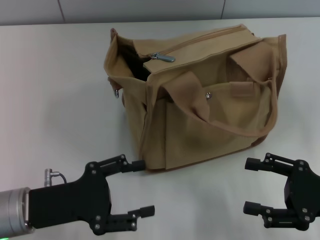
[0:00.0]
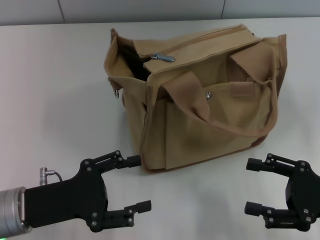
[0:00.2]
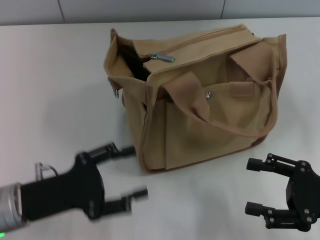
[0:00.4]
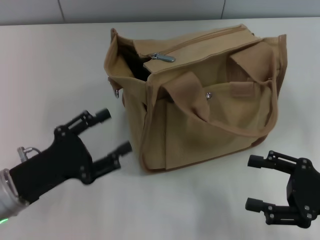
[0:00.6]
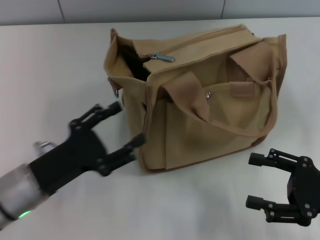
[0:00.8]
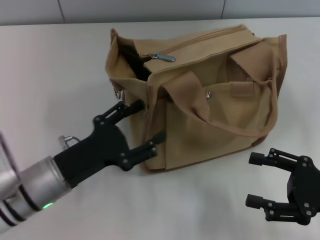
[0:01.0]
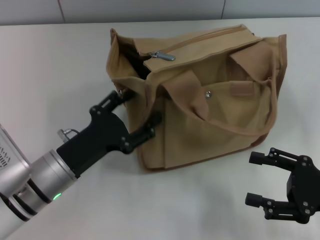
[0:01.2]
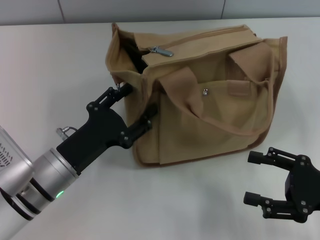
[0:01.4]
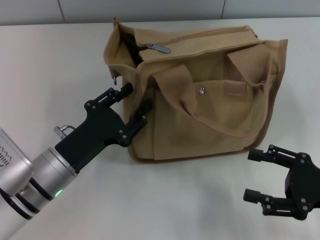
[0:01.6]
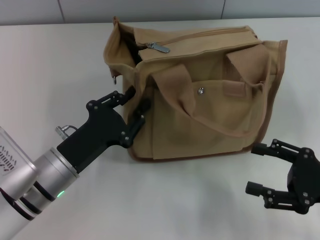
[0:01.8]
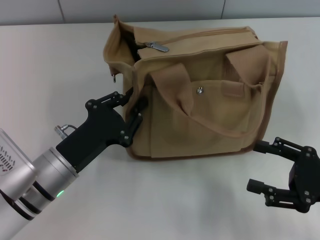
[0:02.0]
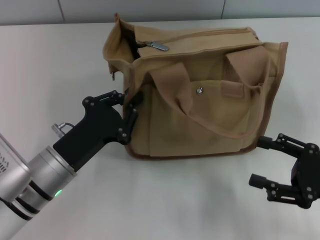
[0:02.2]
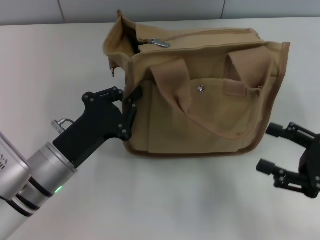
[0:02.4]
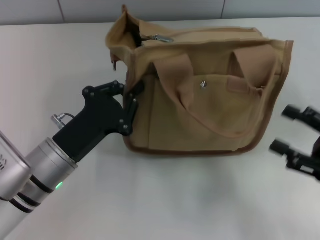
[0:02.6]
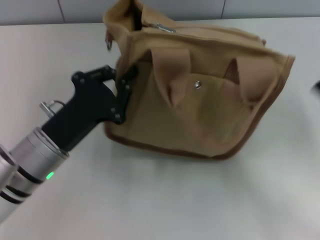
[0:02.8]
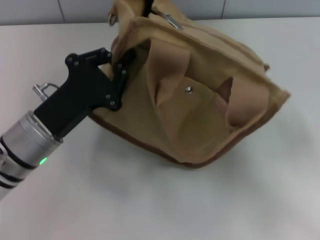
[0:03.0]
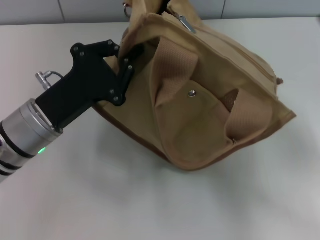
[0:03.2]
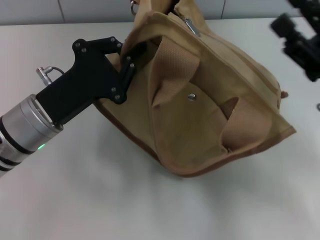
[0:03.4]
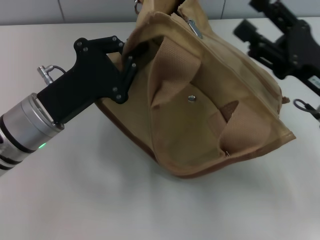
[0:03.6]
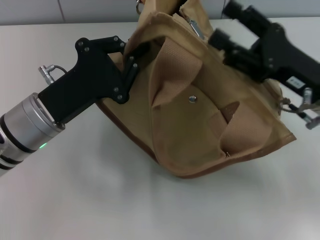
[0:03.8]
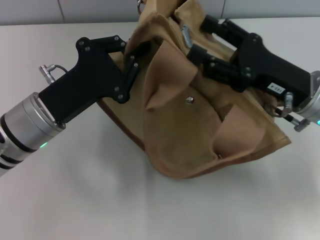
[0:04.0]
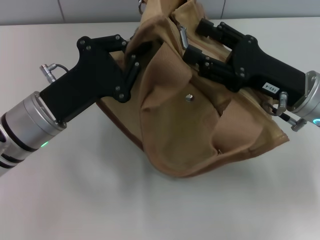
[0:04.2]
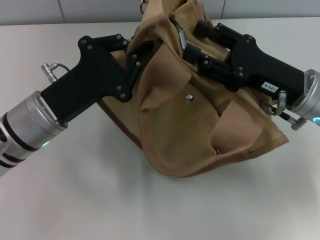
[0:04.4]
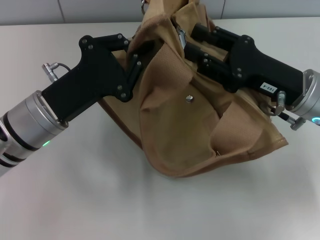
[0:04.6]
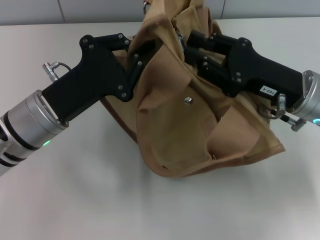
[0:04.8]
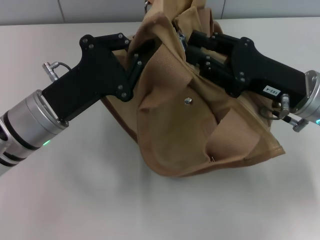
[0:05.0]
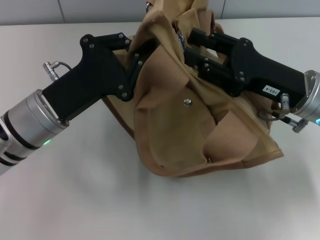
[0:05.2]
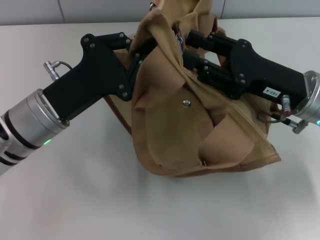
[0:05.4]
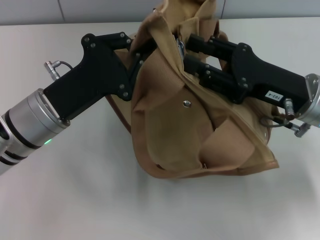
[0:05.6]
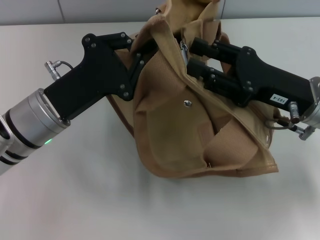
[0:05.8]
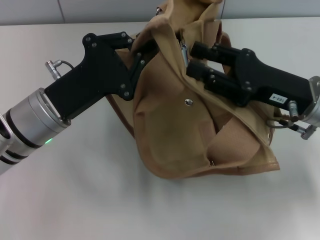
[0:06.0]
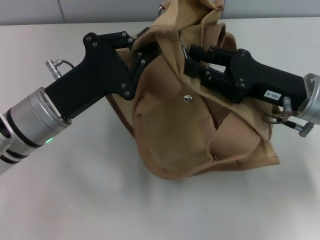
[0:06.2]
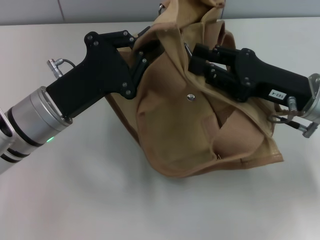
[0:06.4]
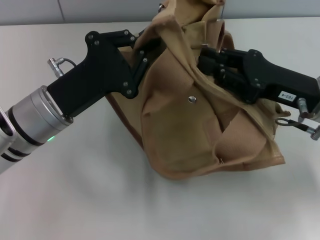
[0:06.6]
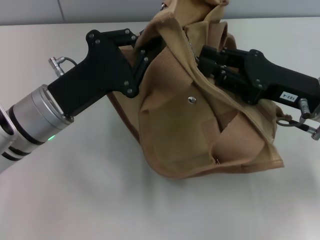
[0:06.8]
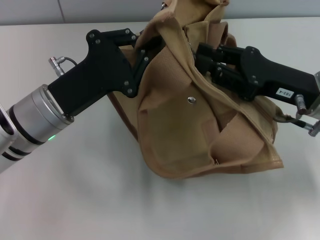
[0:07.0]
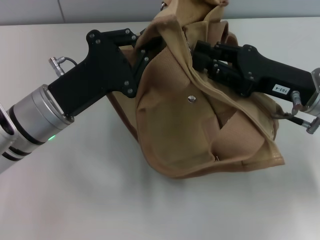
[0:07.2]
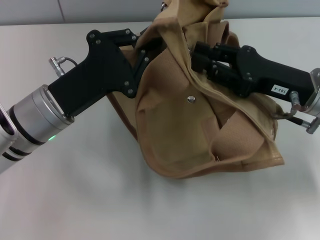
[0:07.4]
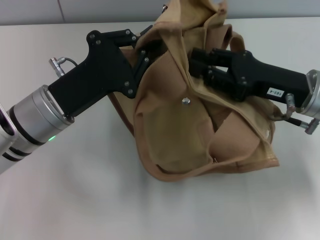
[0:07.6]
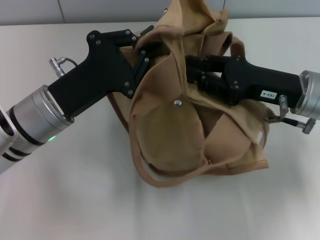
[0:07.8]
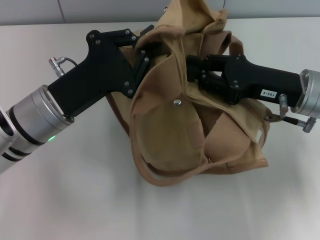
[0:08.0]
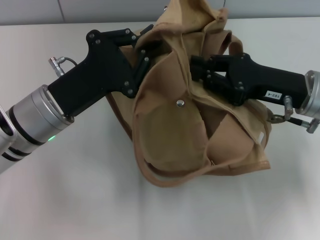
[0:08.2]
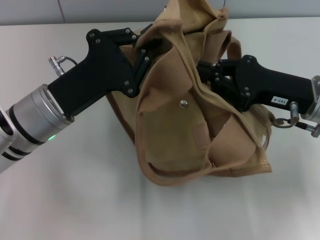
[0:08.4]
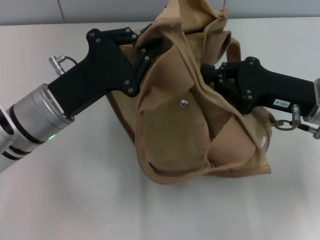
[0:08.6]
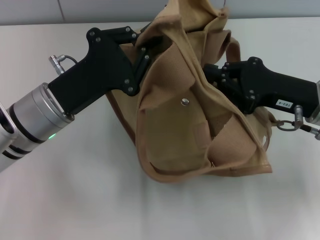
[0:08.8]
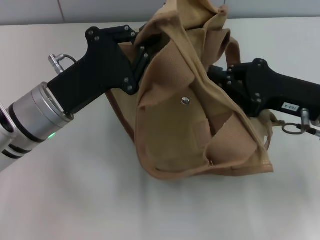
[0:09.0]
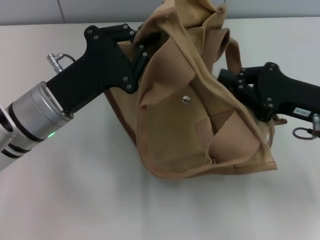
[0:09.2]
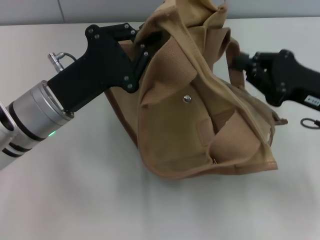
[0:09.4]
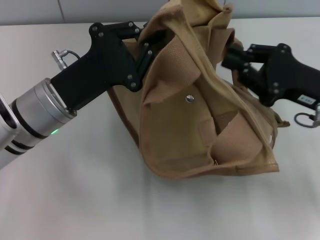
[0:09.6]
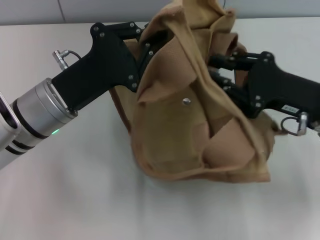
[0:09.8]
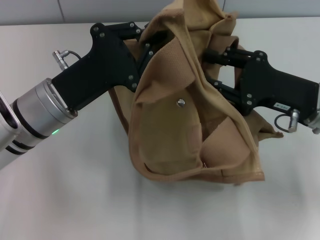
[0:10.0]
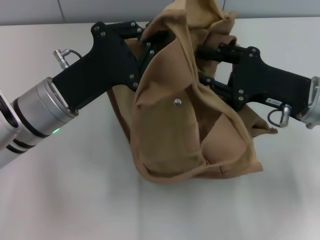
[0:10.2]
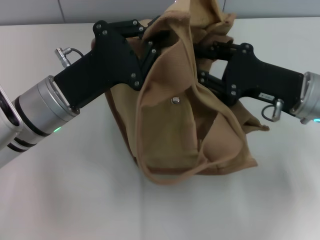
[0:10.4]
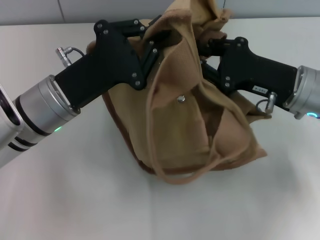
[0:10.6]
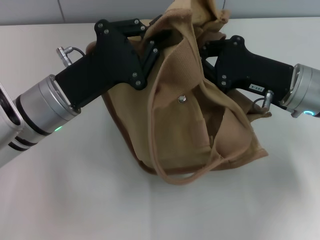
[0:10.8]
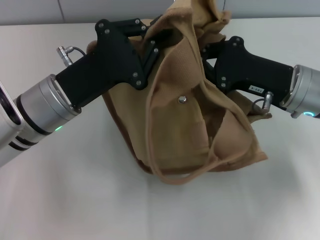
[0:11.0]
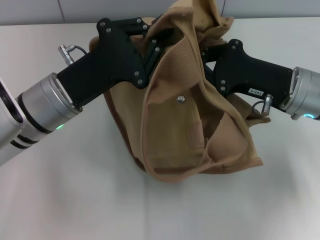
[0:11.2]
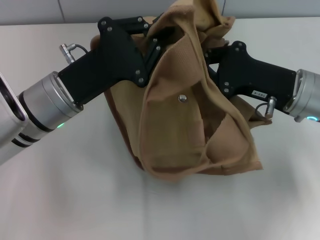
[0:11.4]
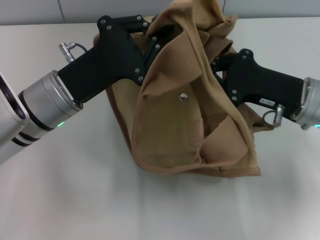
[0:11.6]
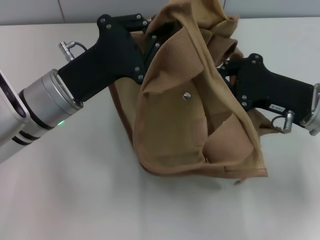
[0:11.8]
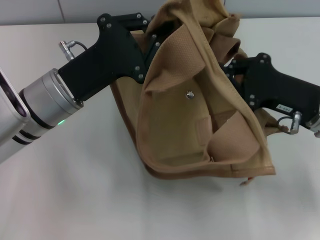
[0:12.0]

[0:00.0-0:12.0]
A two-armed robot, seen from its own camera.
0.0 to 1.6 s: The left gripper ends up some 5 cm from where it was.
1.6 to 3.0 s: The left gripper shifts by approximately 5 cm, and closes up.
3.0 to 4.4 s: The right gripper goes approximately 15 cm to the left and forward.
4.4 to 7.6 s: There are only small adjustments of the grippers.
7.6 to 9.0 s: The right gripper closes up.
9.0 to 10.4 s: The right gripper opens its fingers.
10.4 to 12.0 s: The right gripper closes.

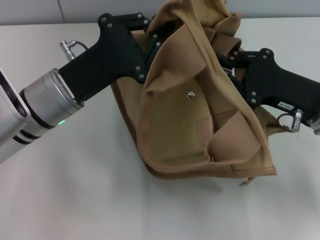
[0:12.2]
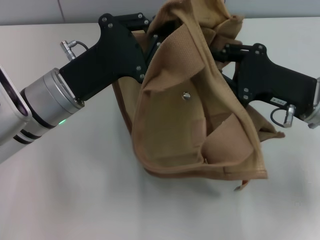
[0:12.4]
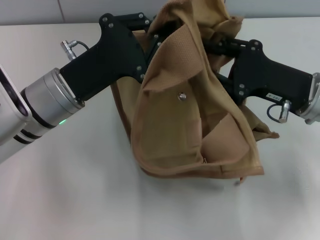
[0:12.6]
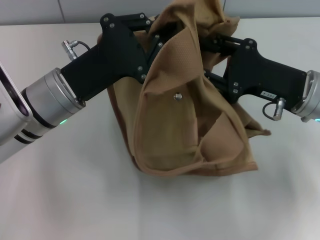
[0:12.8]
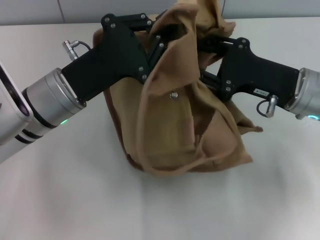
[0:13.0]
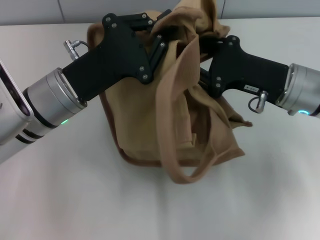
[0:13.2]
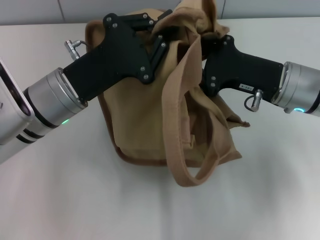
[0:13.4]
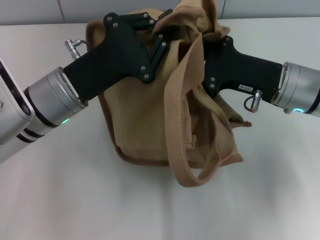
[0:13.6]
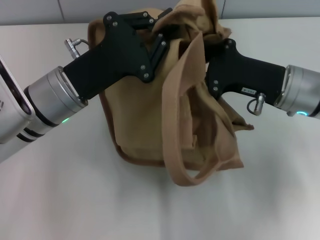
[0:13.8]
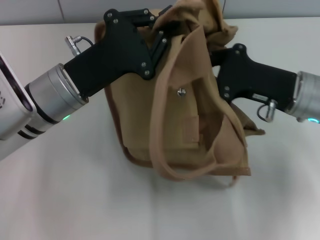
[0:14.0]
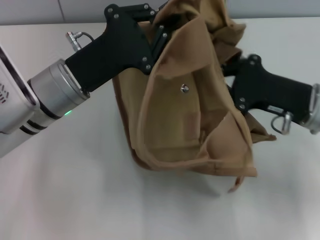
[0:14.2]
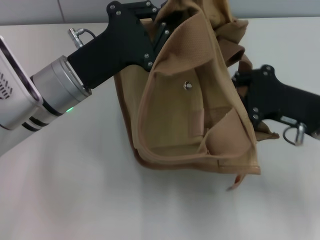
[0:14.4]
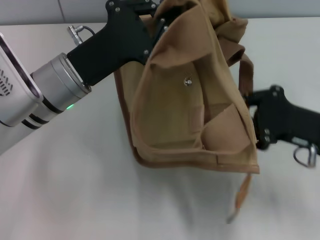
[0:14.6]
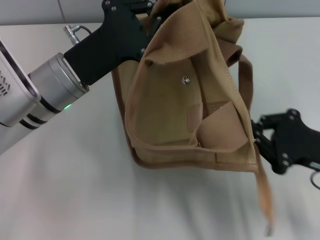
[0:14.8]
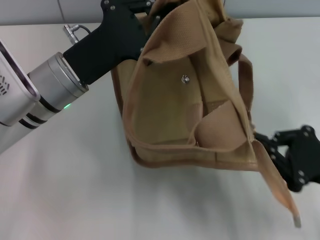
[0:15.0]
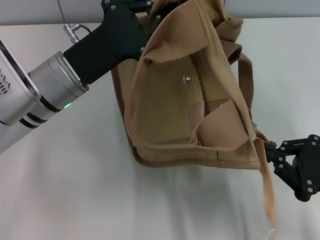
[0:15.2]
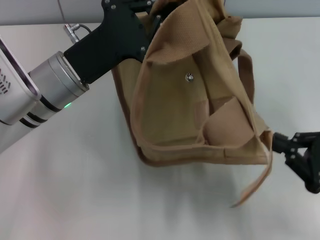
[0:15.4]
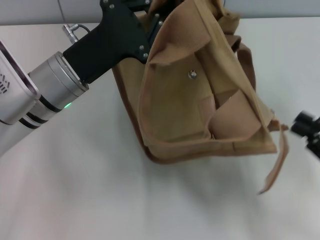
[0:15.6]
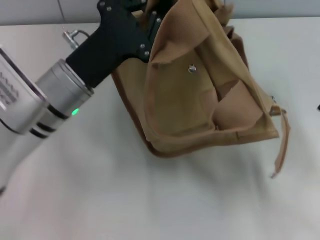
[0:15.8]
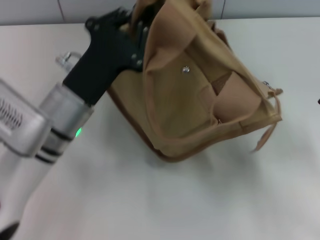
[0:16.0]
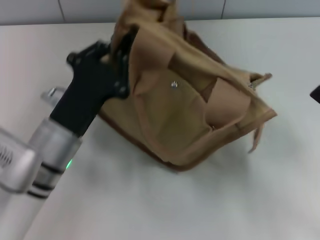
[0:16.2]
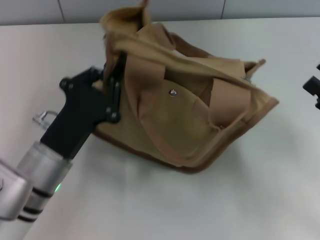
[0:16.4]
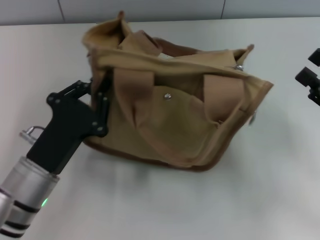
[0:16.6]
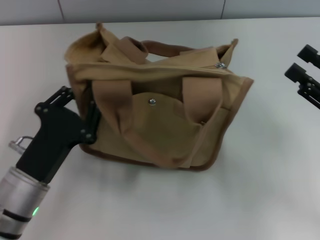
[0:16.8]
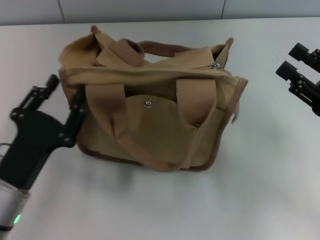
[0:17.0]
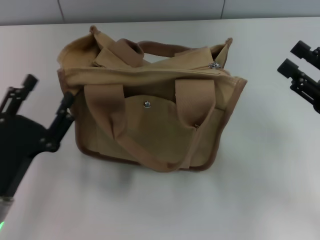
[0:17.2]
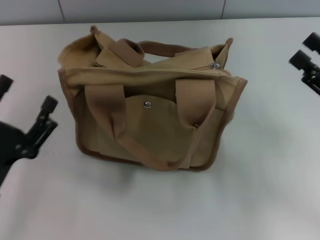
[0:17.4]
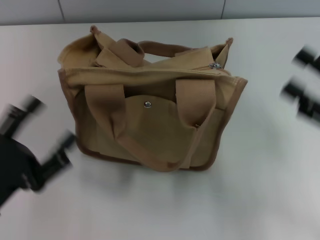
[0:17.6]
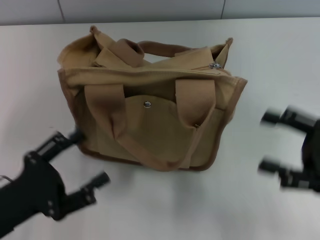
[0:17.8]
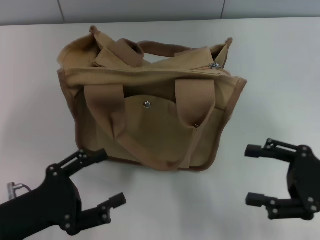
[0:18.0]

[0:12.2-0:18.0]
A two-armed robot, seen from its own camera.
Step, 12.2 to 15.8 s: Pull open the zipper with your right hand.
Step, 16.0 to 17.2 s: Grab the bag with your left hand.
12.2 to 13.6 s: The right gripper shifts by roughly 5 cm.
13.6 to 15.0 s: The right gripper shifts some 15 cm backward and to the right.
15.0 to 16.6 s: The left gripper goes some 15 cm backward and downward. Meanwhile the right gripper opens.
16.6 to 18.0 s: The left gripper heads to the left, covering some 5 cm, and opens.

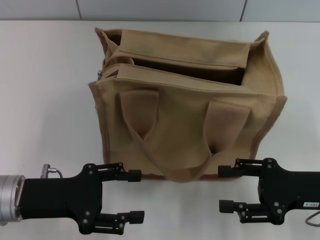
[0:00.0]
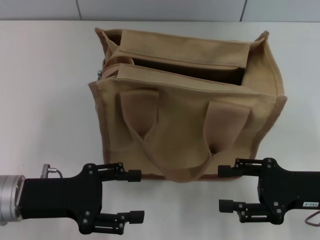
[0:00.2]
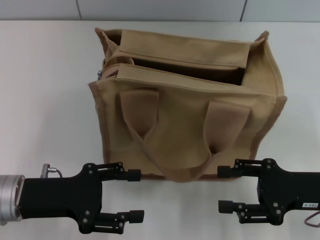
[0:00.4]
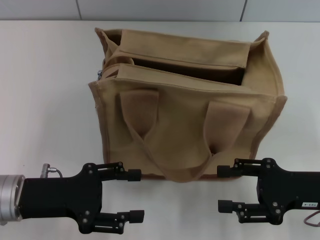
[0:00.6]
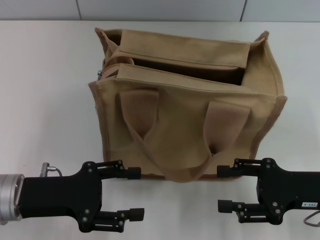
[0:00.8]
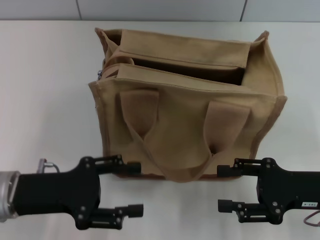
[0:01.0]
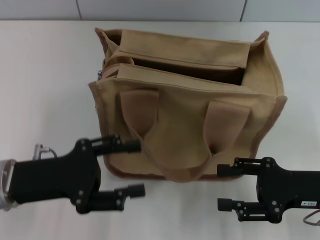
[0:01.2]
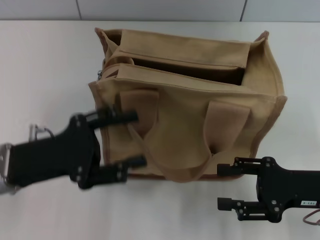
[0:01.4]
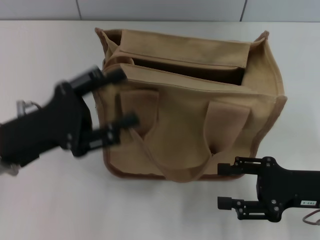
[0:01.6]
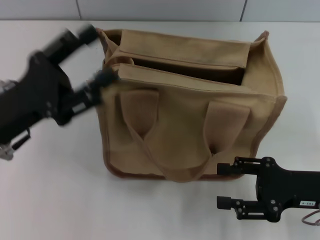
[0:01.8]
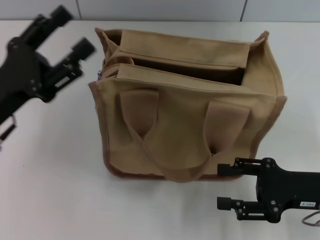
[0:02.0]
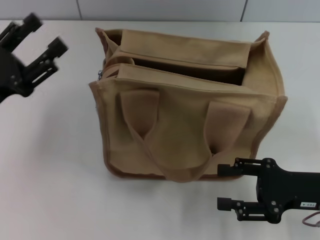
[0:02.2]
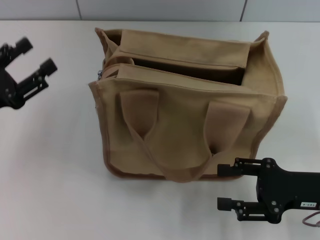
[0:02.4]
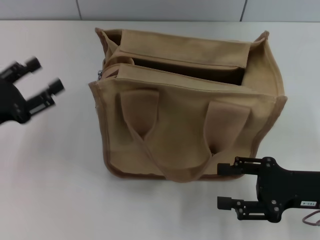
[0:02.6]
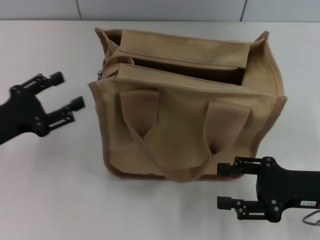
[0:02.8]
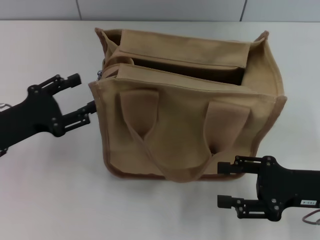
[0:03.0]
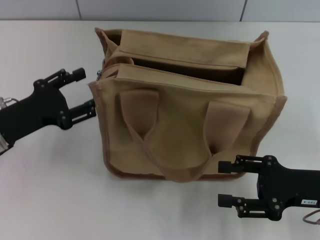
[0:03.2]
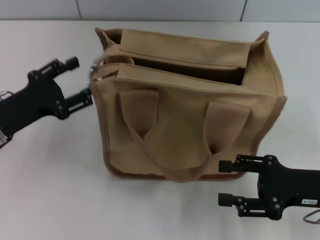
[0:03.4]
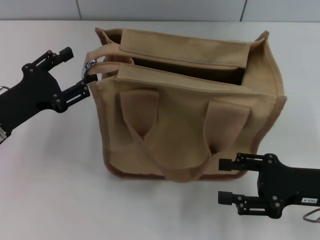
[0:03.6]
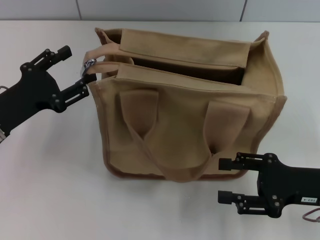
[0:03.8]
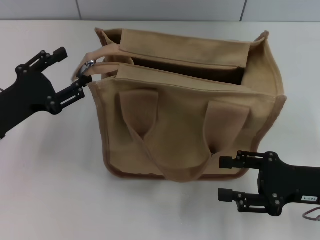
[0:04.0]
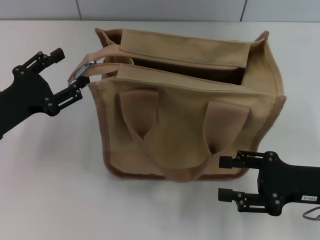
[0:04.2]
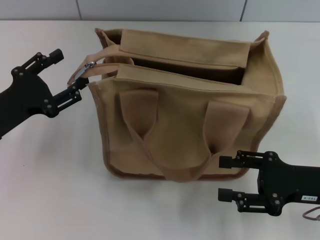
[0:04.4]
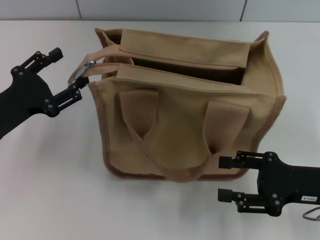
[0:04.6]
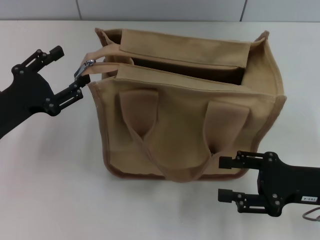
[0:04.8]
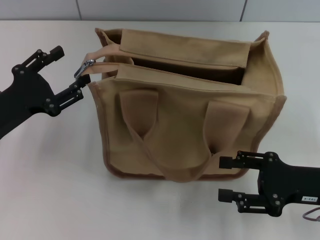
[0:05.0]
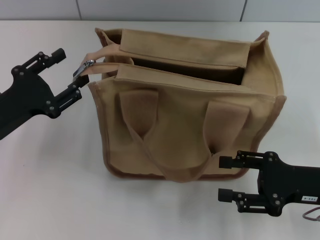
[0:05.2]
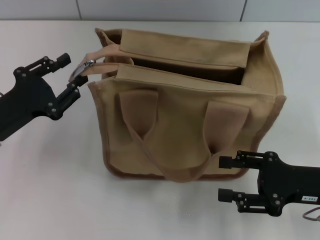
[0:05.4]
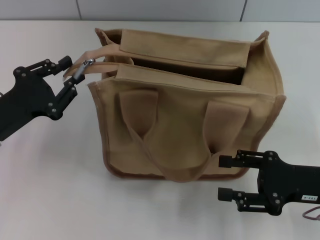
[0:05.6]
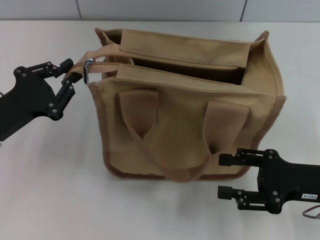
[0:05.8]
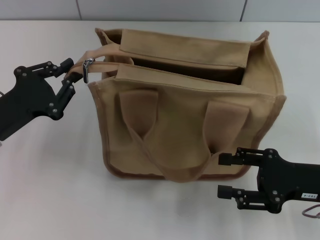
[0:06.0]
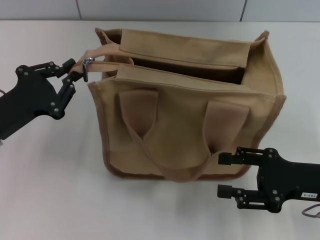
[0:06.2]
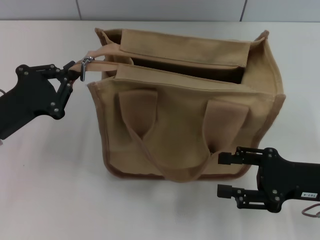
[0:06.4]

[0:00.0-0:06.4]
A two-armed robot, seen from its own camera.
1.6 to 3.2 s: The left gripper changes place by about 5 cm.
3.2 to 4.8 s: There are only small adjustments of the grippers.
4.8 to 6.4 s: The left gripper closes.
